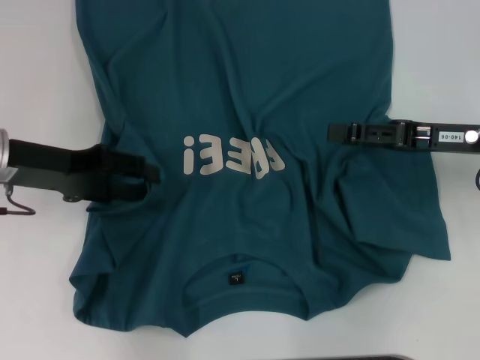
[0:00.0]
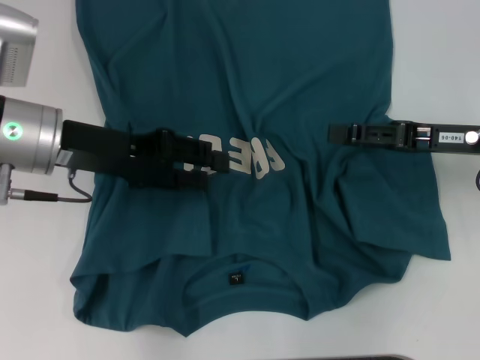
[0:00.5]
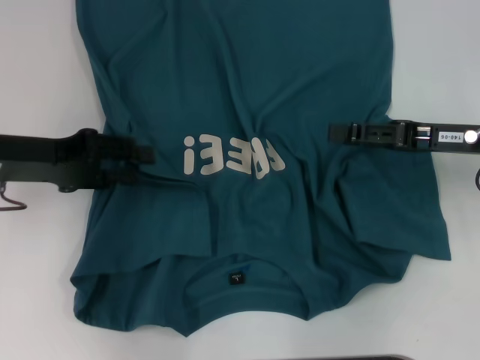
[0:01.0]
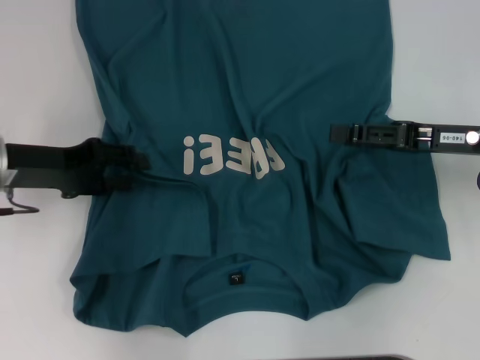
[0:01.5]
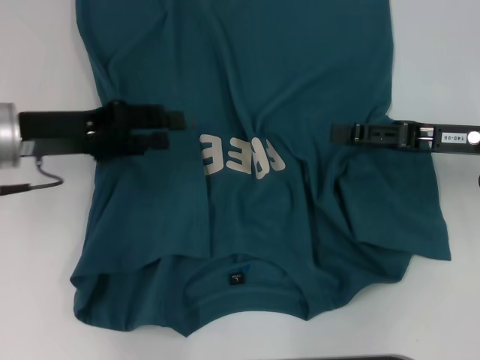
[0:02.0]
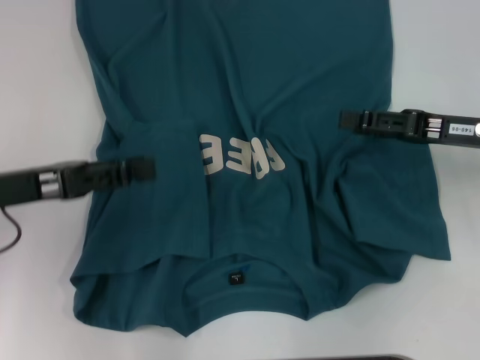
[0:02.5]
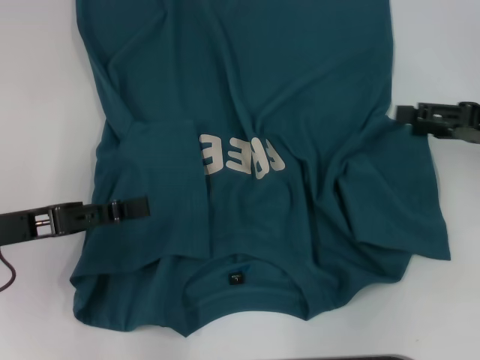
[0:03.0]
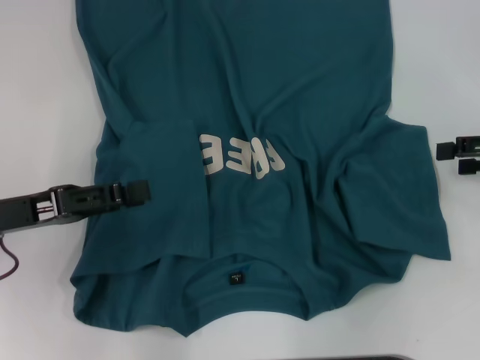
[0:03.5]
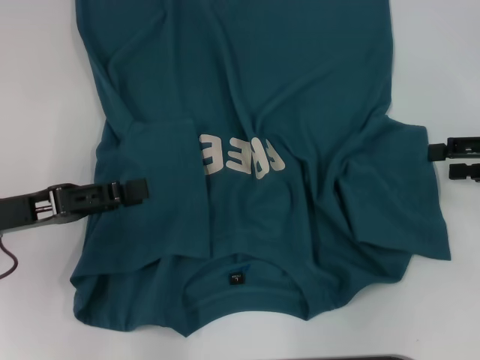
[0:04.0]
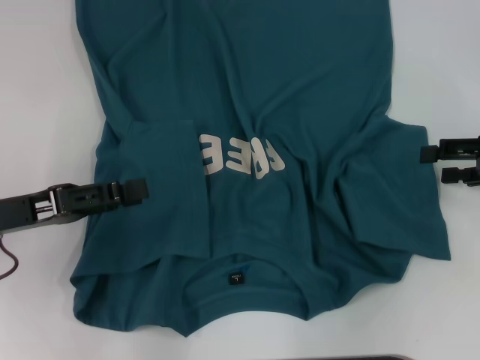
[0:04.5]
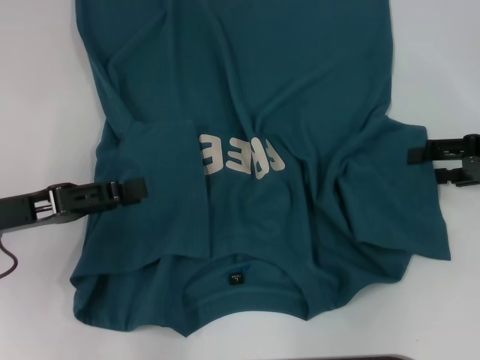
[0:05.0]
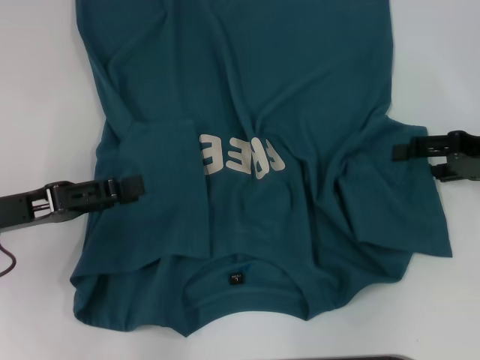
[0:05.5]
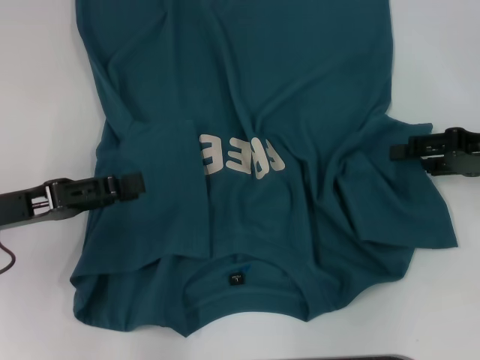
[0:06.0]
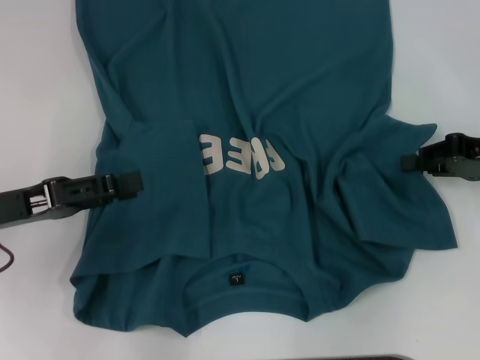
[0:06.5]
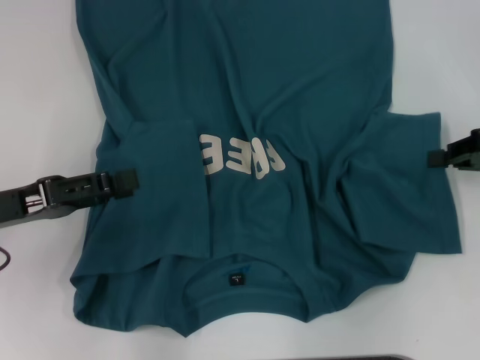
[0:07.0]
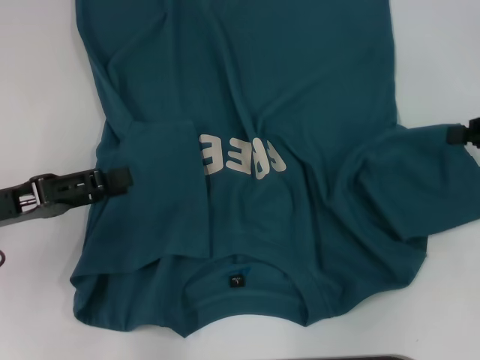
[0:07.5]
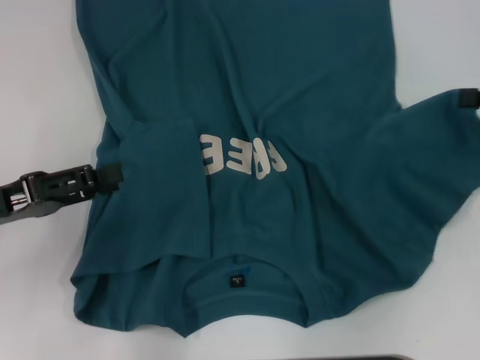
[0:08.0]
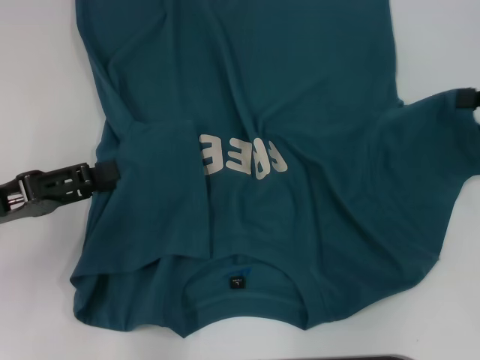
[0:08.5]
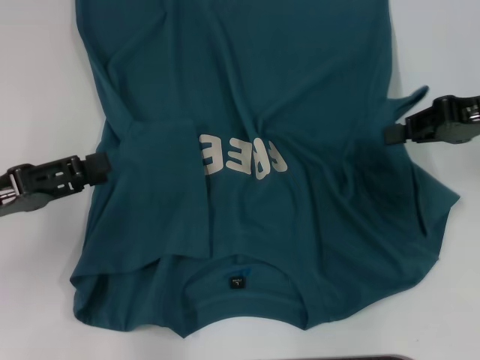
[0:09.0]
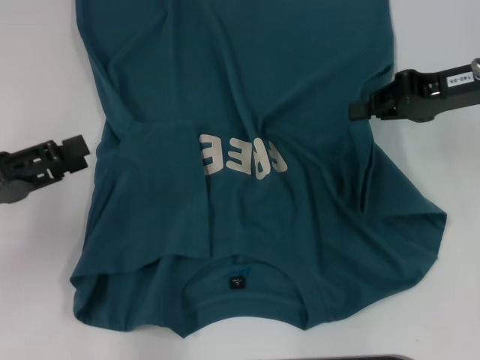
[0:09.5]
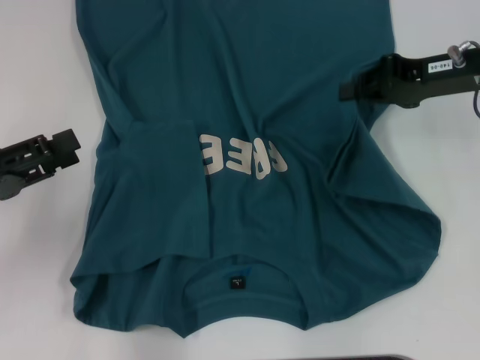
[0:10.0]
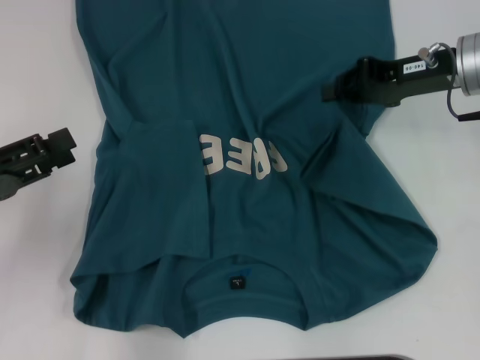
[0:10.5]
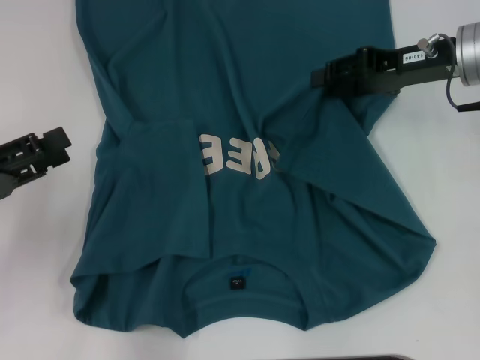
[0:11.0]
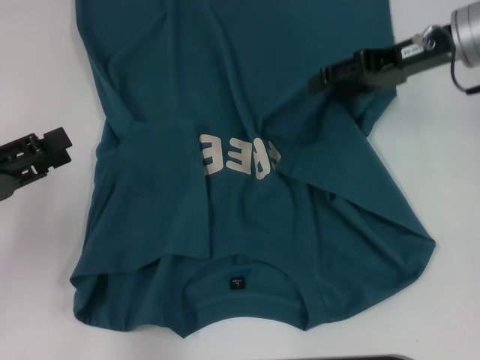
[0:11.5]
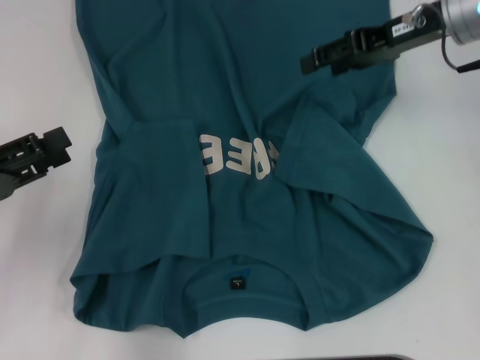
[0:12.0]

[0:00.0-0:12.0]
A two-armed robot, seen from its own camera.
Step, 2.0 to 11.5 s: Fold the bottom right sleeve to the right.
0.0 to 2.0 s: The grippers stay close to where they were, moving slightly.
2.0 to 4.0 s: The right gripper moves to the right, some 10 cm, while the left gripper goes approximately 10 cm backward.
4.0 to 6.0 s: The grippers make only small movements.
6.0 to 8.0 s: The right gripper is displaced upward by roughly 5 cm, and closes its fingers.
8.0 to 10.0 s: The right gripper moves to the left and forward, roughly 10 cm.
10.0 to 12.0 s: The right gripper moves some 5 cm, and opens its fingers.

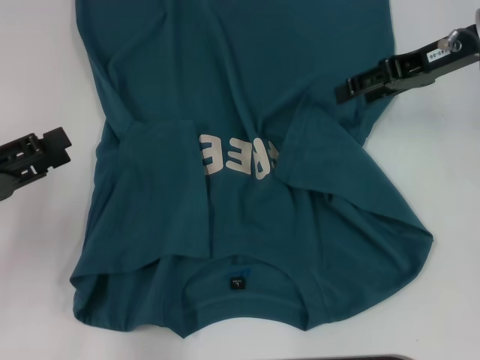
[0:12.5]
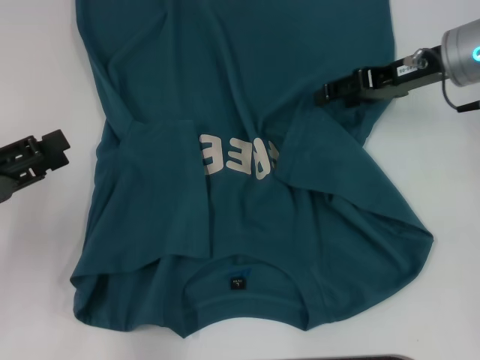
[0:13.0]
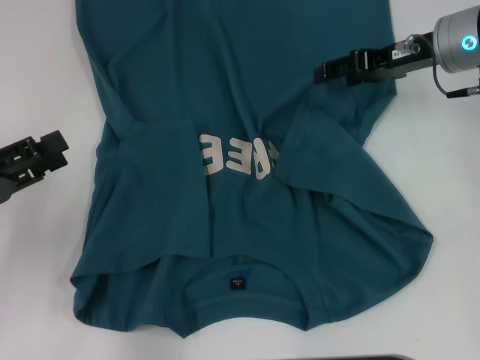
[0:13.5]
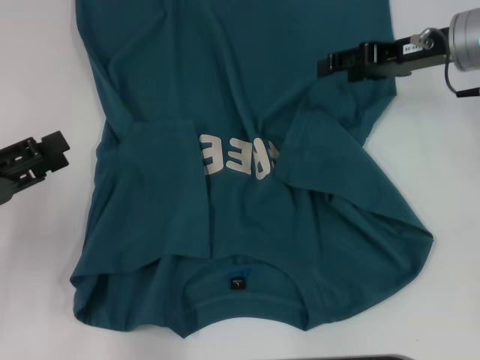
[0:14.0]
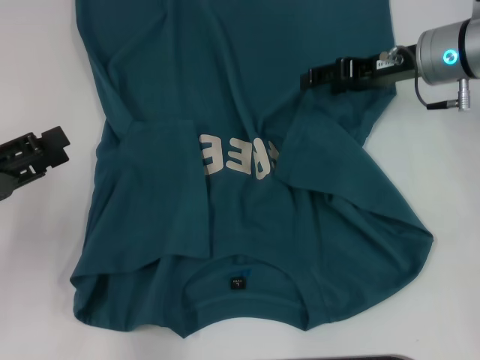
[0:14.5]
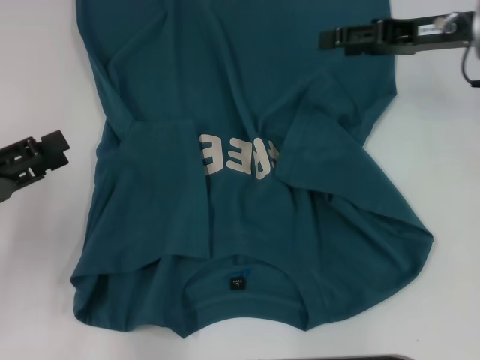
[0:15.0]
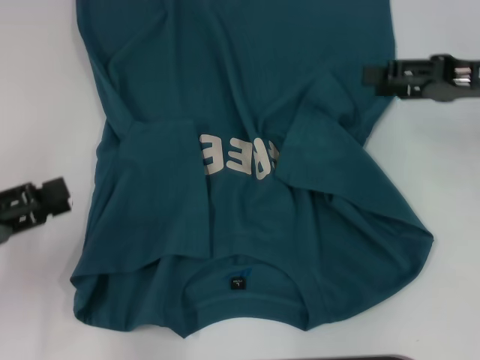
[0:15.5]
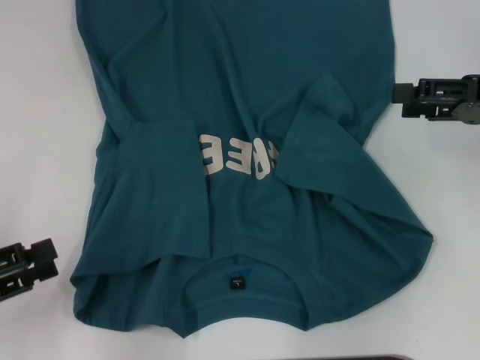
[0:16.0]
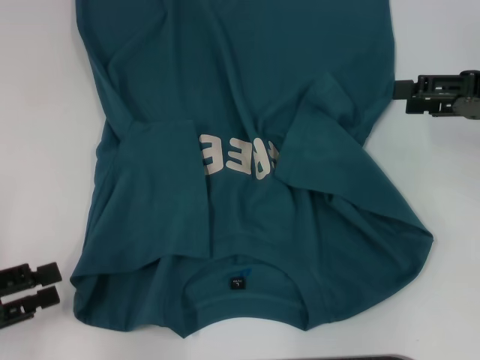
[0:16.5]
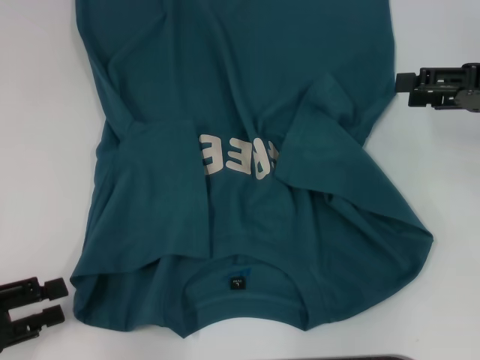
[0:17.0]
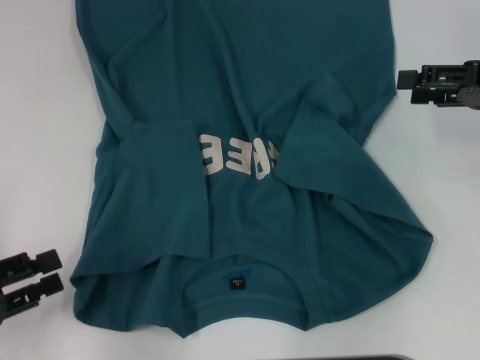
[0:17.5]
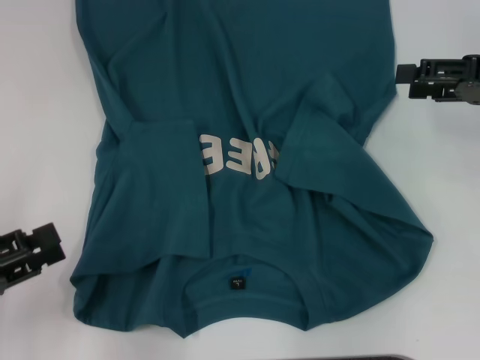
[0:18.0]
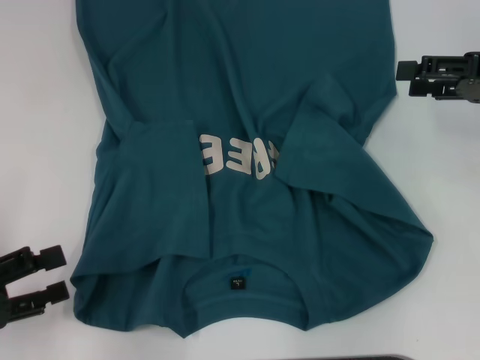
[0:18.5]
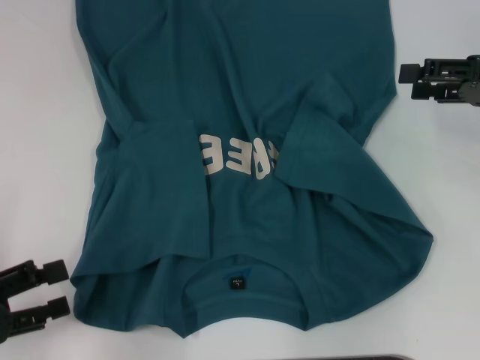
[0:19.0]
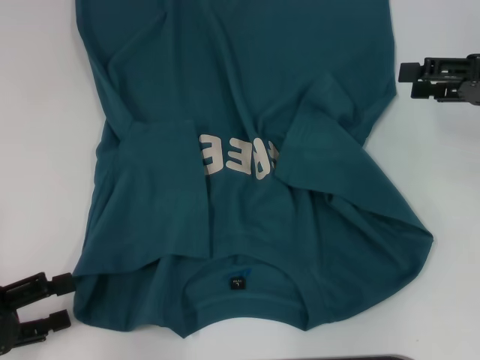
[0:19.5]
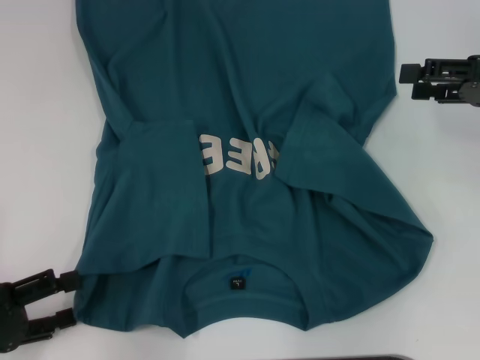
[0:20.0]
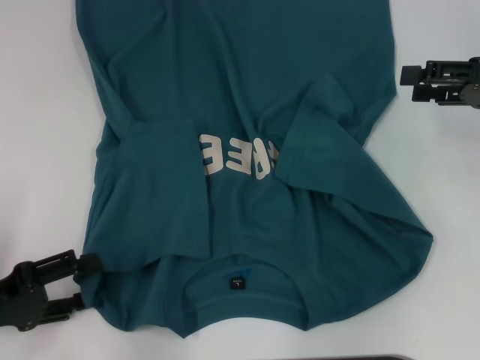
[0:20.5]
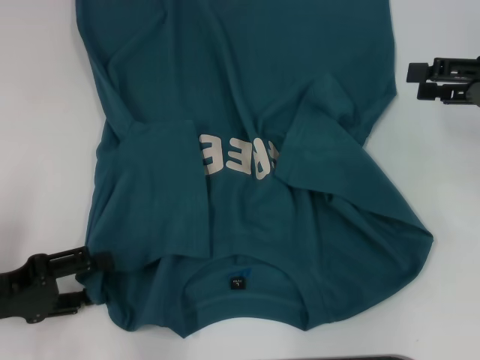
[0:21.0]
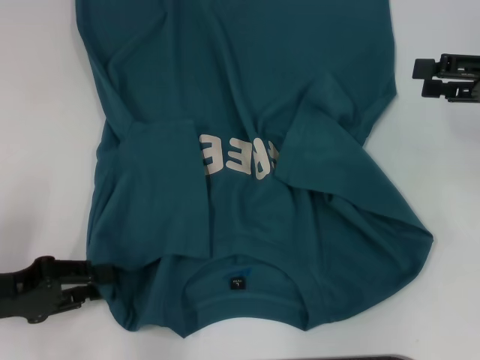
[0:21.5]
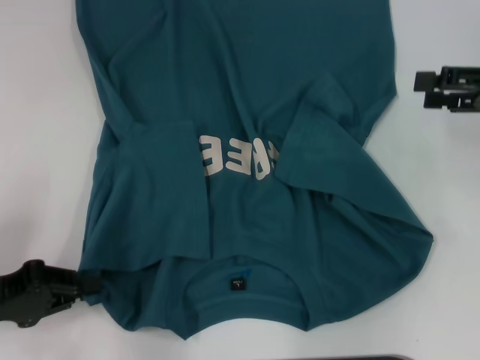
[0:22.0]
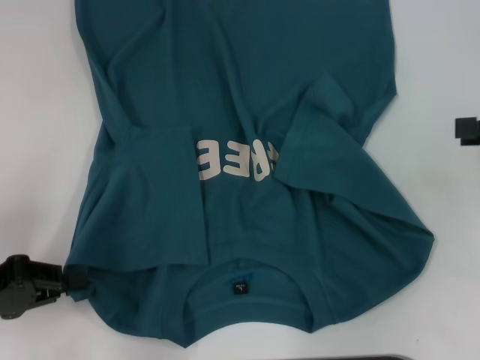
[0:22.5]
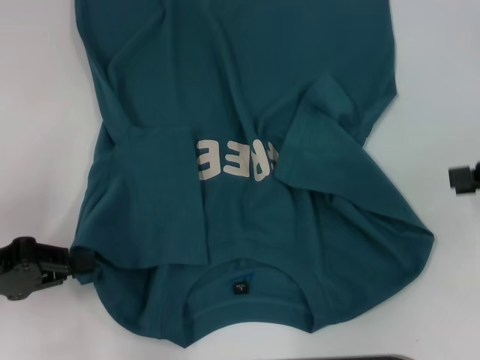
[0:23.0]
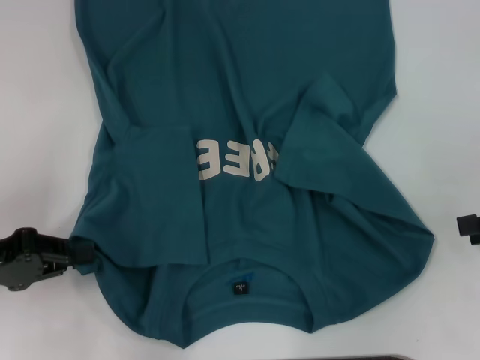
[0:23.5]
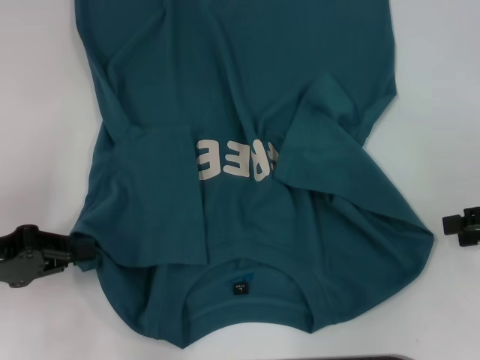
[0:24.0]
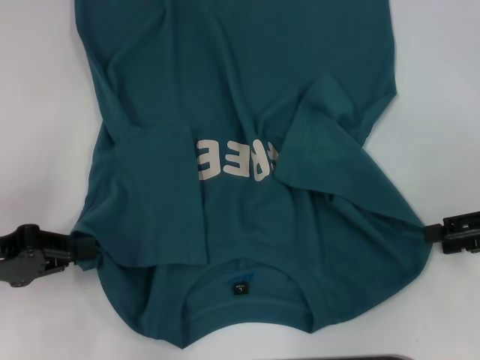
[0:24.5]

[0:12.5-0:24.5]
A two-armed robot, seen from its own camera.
Step, 12.5 to 22.0 s: Grab the bottom left corner with your left hand.
12.5 to 14.5 s: The right gripper heads downward, covering roughly 5 cm.
14.5 to 16.5 s: The right gripper heads to the right and backward, covering approximately 15 cm. The left gripper shifts approximately 5 cm backward.
16.5 to 20.5 s: The grippers make only small movements.
20.5 to 22.5 s: The left gripper closes up; the right gripper changes place by about 5 cm.
22.5 to 24.5 s: The right gripper travels downward by approximately 5 cm.

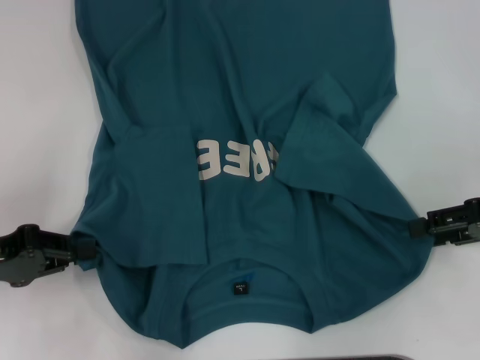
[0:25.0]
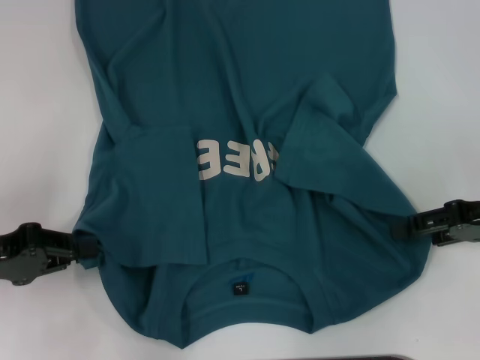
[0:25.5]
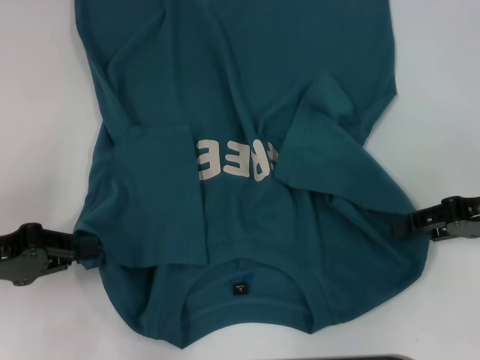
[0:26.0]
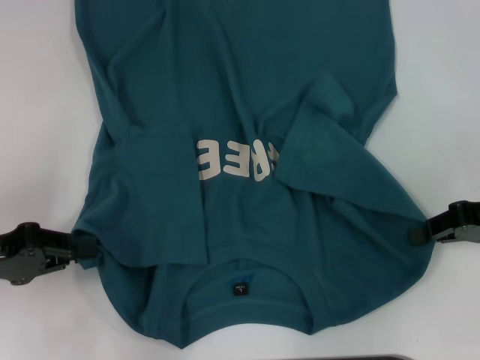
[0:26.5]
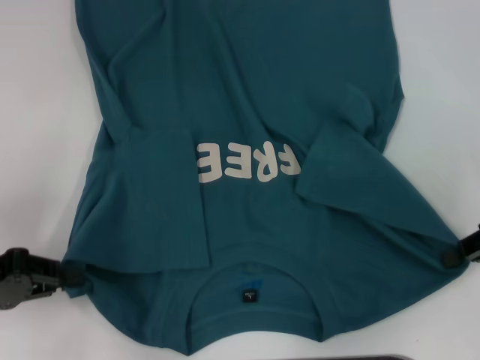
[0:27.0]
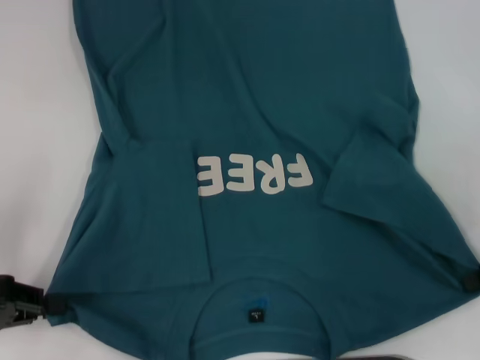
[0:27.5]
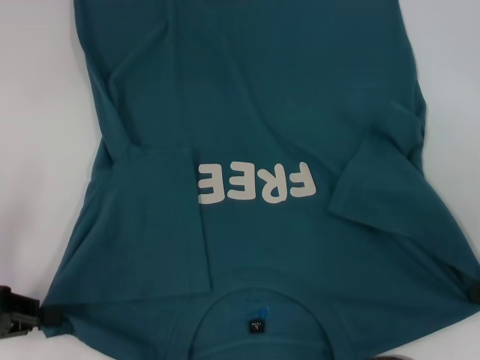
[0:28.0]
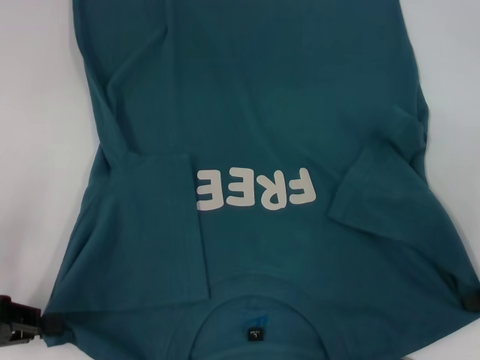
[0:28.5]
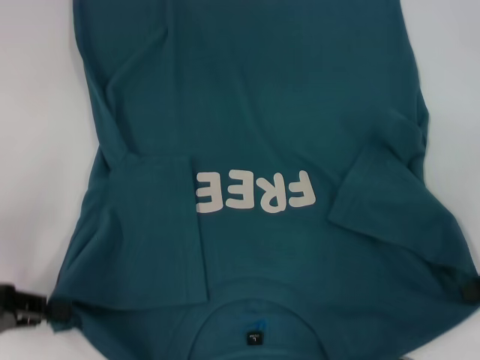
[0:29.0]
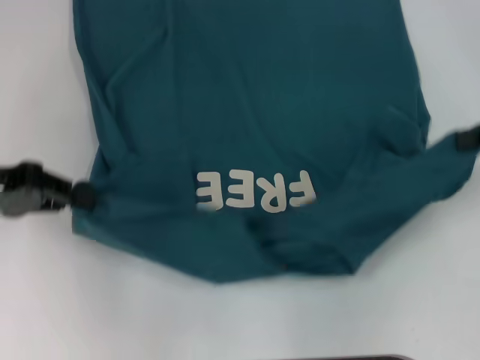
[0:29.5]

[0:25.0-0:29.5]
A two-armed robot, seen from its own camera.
25.0 to 27.0 s: The right gripper closes its fingers.
27.0 to 29.5 s: The right gripper travels upward by some 5 cm, while the left gripper heads forward and upward, covering about 10 cm.
